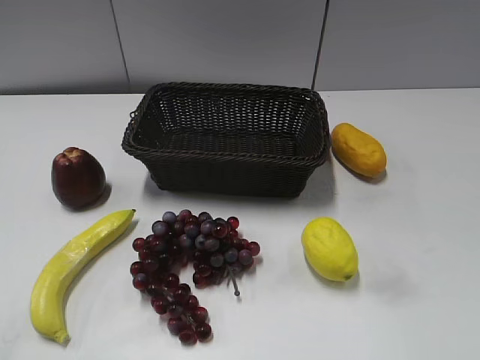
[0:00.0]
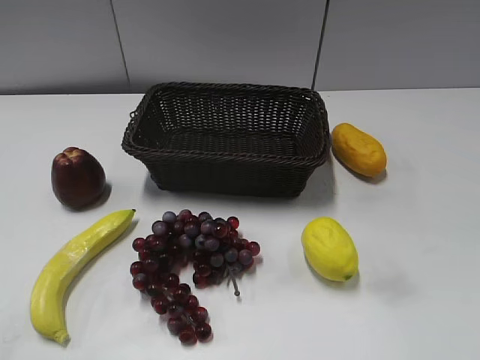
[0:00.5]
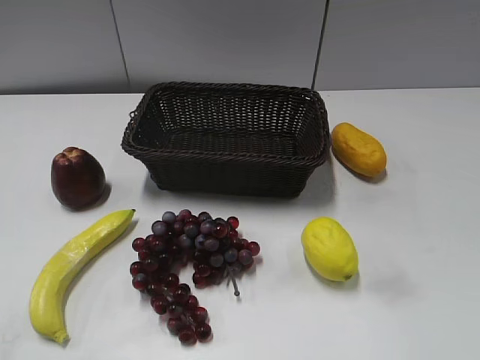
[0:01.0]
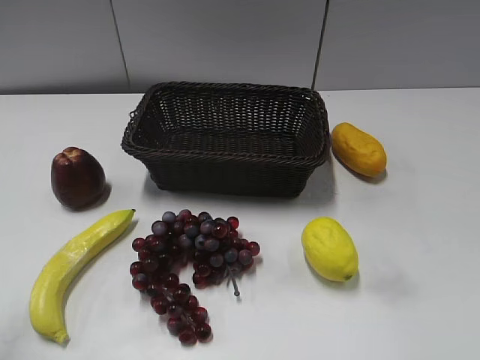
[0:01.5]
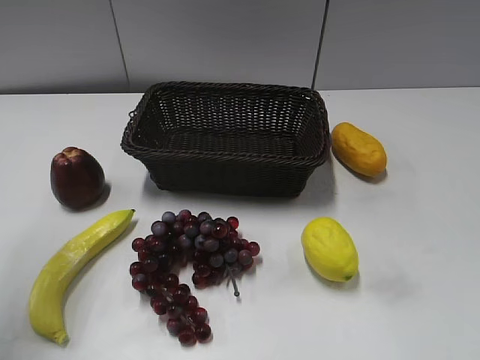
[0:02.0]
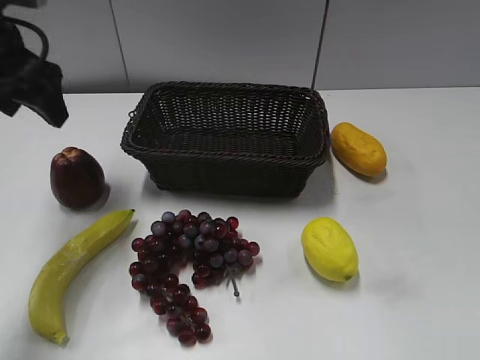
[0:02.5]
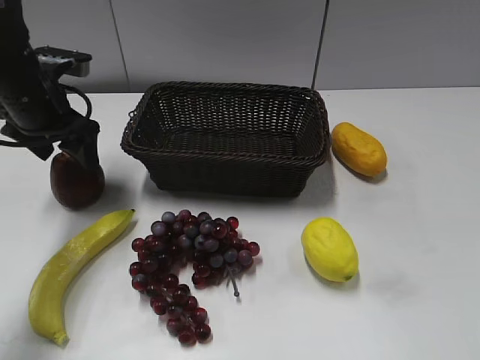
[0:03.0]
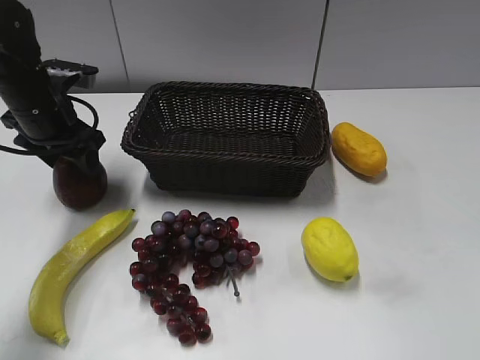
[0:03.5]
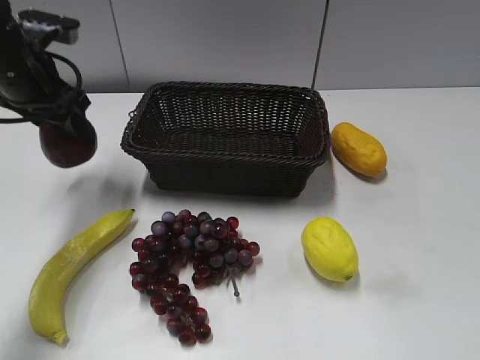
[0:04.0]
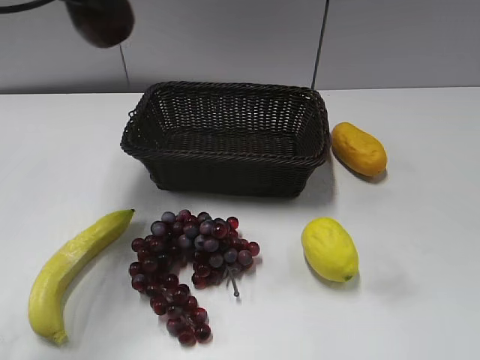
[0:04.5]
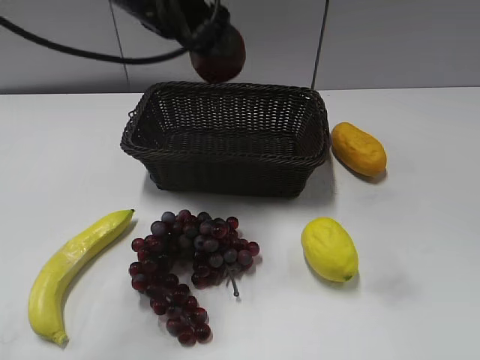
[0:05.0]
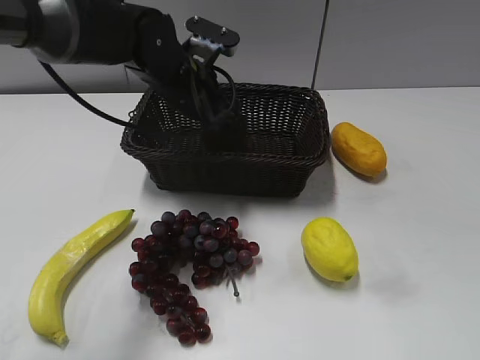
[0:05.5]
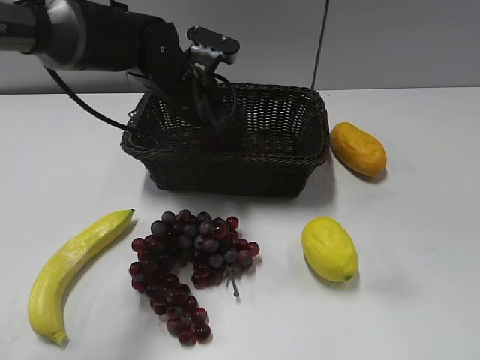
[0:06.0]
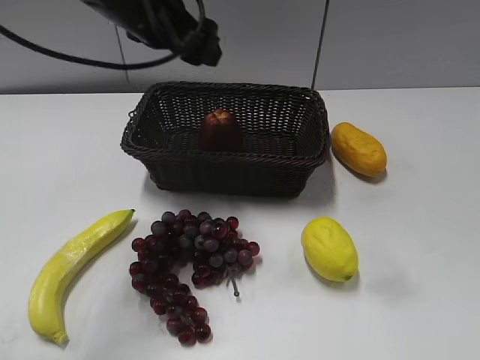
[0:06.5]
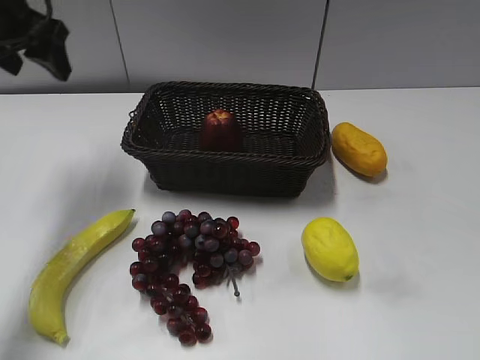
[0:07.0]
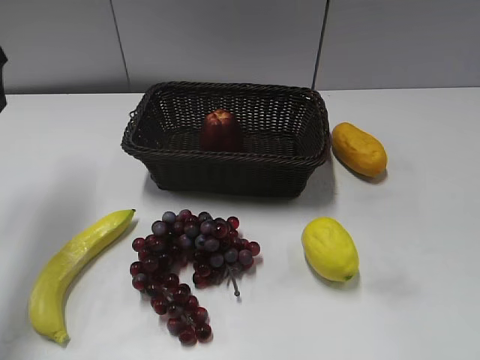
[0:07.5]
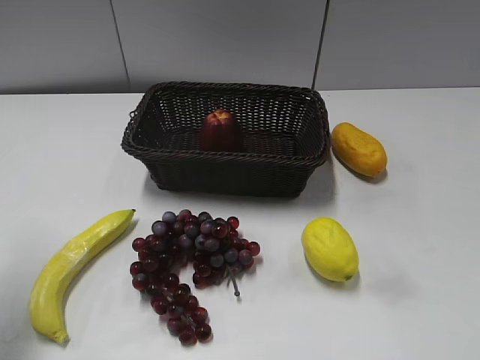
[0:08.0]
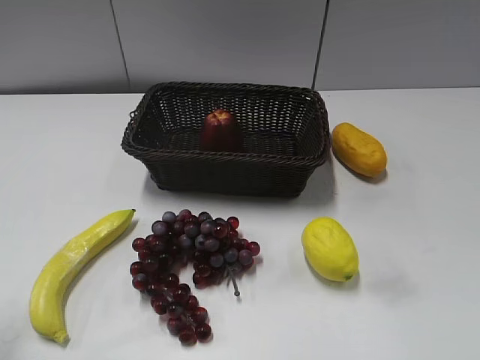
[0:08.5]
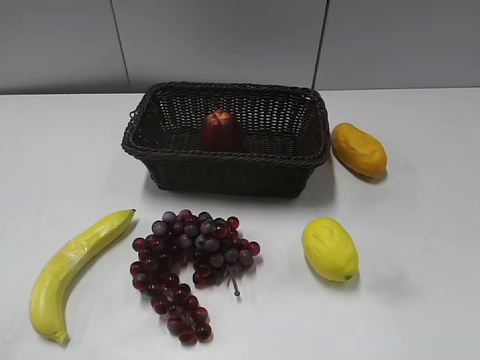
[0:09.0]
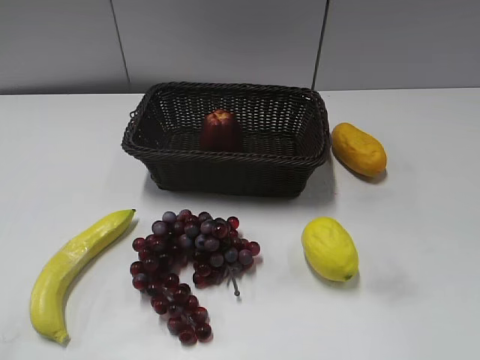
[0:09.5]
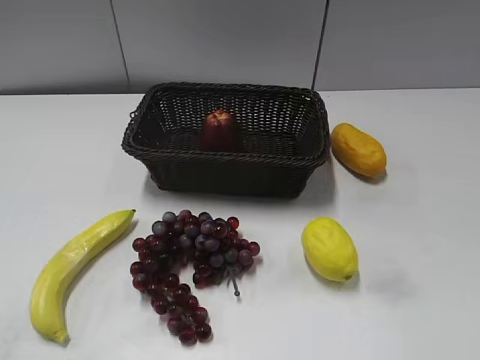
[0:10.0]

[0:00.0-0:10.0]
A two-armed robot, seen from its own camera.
Step, 0:02.5 to 0:03.0: Grasp the apple with left gripper.
Step, 0:04.0 to 0:05.5: Place the apple in the basket with left gripper.
0:02.0 to 0:04.0: The left gripper shifts approximately 20 cm downward and forward, and closes.
0:04.0 to 0:06.0: The left gripper shifts about 20 cm to the right, moves about 10 cm upward and comes back, and opens.
0:06.0 to 0:08.0: The left gripper is displaced to the left and backward by some 30 cm.
0:08.0 to 0:10.0: The left gripper is displaced backward by roughly 20 cm.

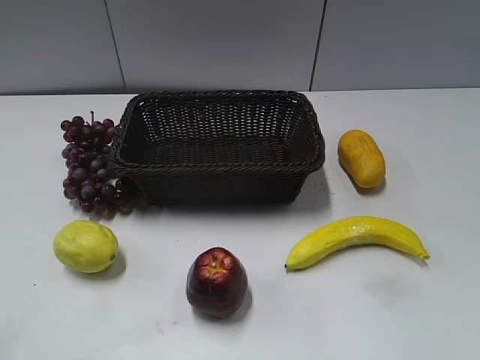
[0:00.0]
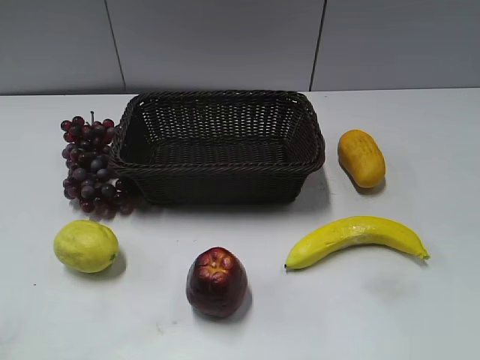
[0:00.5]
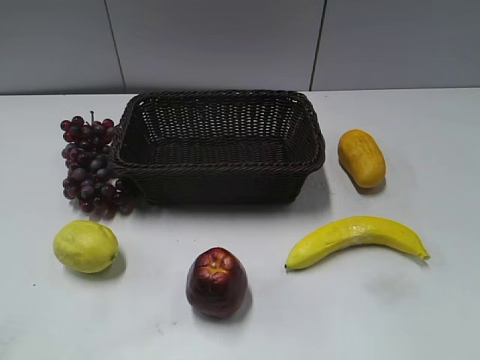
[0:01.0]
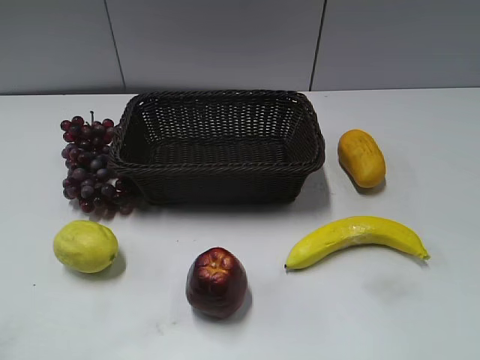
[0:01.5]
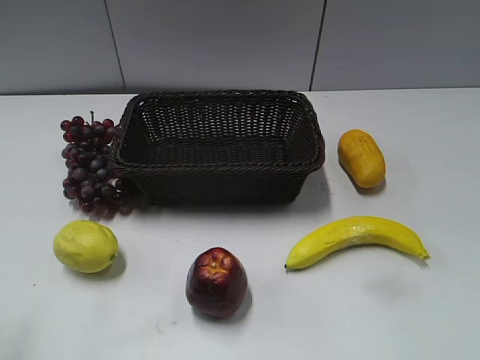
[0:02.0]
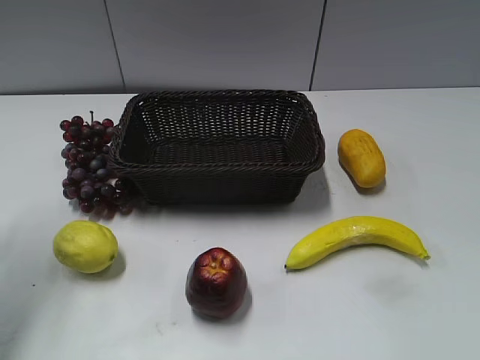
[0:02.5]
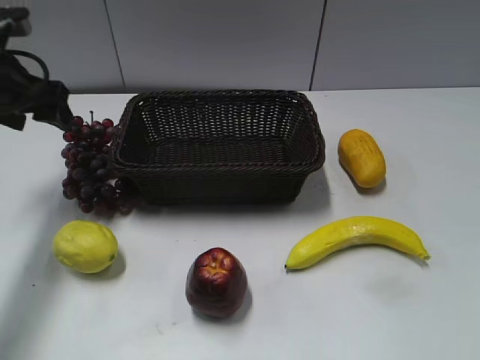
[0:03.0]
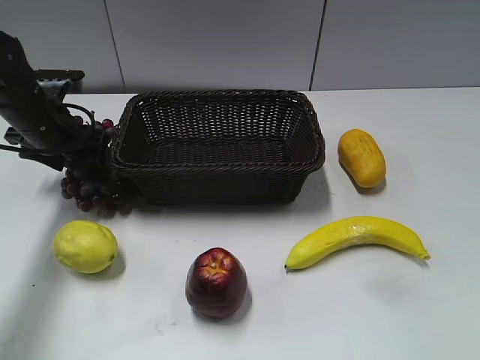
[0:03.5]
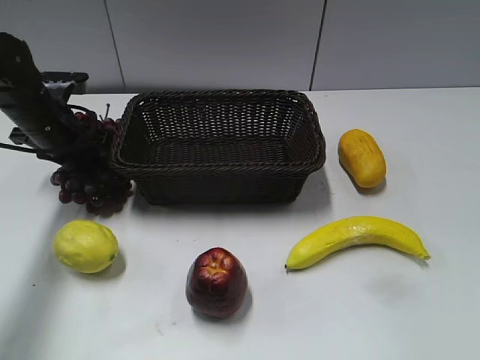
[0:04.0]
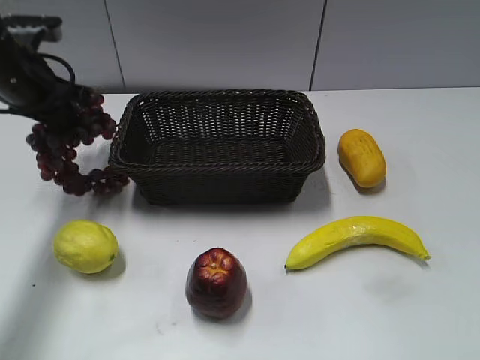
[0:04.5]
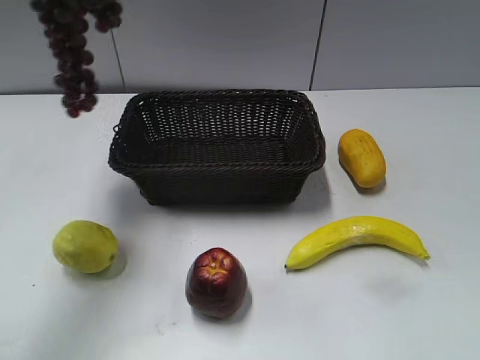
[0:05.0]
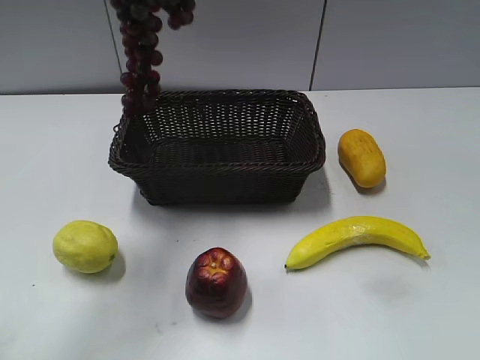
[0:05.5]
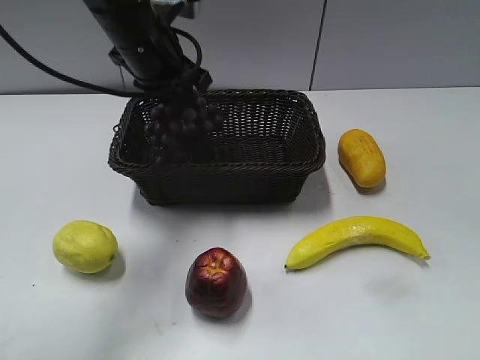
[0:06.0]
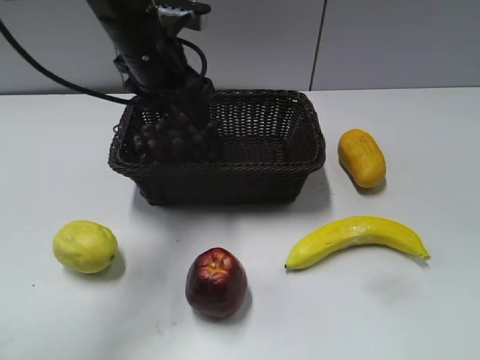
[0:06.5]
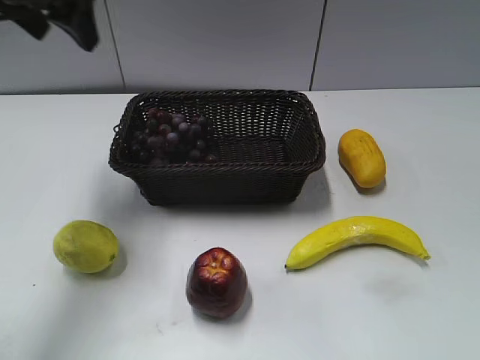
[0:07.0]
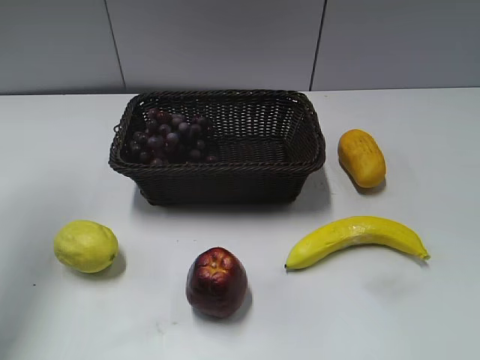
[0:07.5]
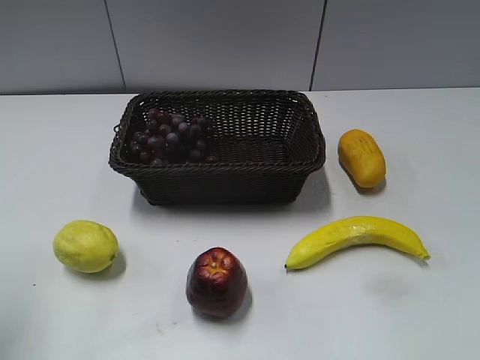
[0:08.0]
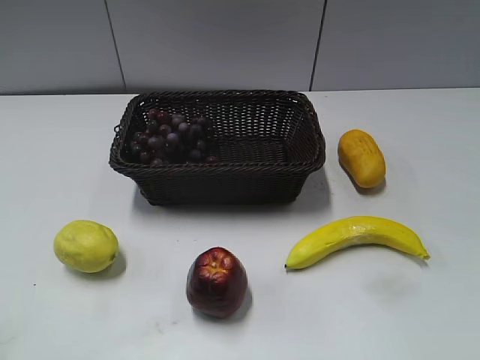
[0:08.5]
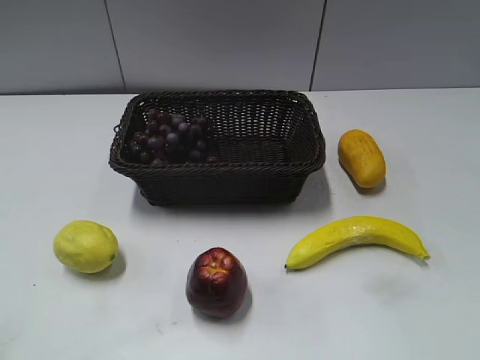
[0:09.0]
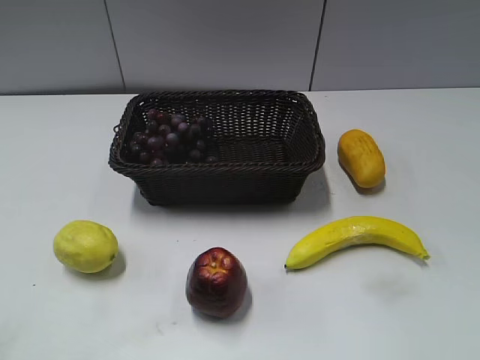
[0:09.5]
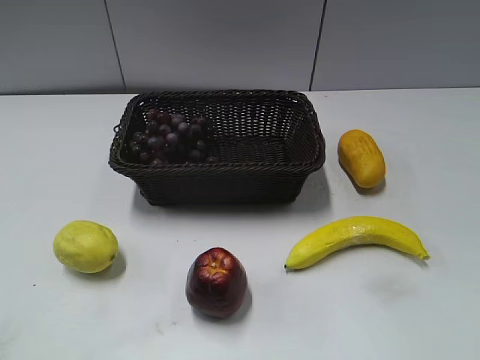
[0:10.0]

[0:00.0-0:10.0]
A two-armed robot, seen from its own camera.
Step, 0:03.0 to 0:03.5: Grasp the grape with left gripper.
Step, 0:04.0 to 0:06.0: Place the grape in the basket with left gripper.
0:02.0 to 0:04.0: The left gripper goes roughly 35 cm forward and downward, and closes its fingers.
0:04.0 to 0:06.0: The left gripper travels to the right and upward by approximately 20 cm.
0:06.0 to 0:08.0: The left gripper is displaced backward, to the left and upward by some 35 cm, and opens up.
0:08.0 to 0:10.0: The left gripper travels backward and downward by approximately 20 cm.
